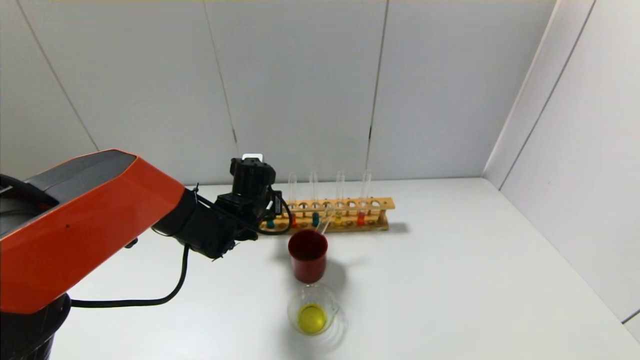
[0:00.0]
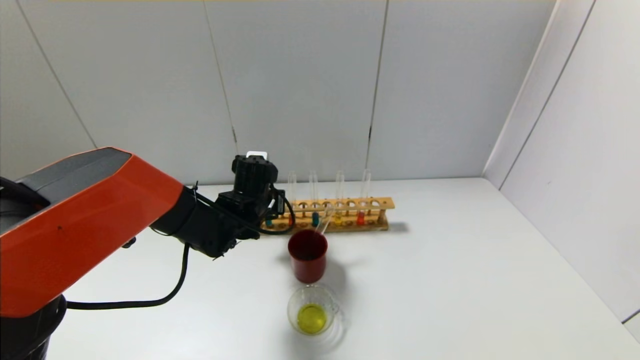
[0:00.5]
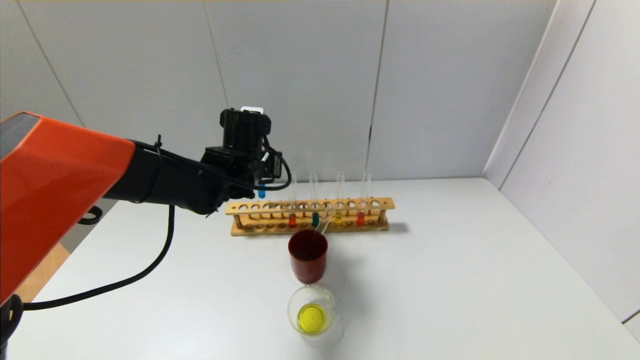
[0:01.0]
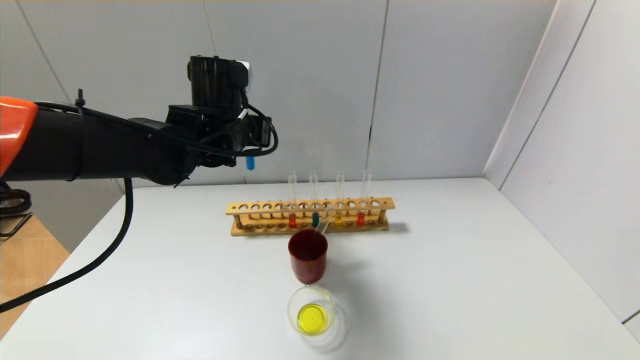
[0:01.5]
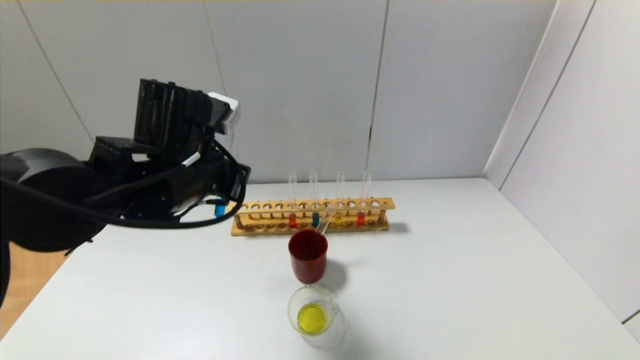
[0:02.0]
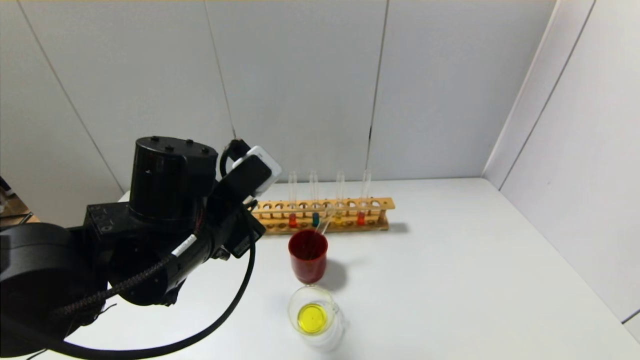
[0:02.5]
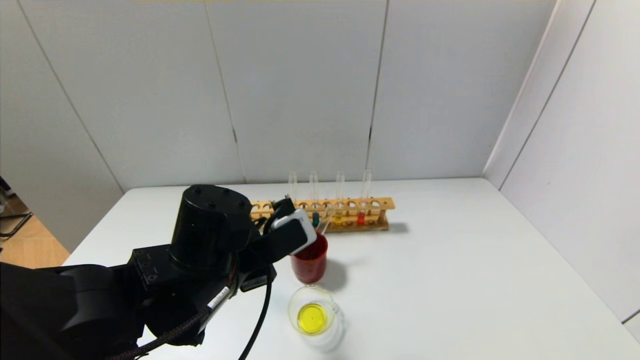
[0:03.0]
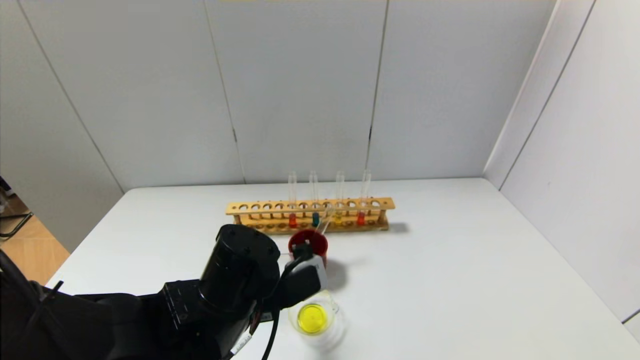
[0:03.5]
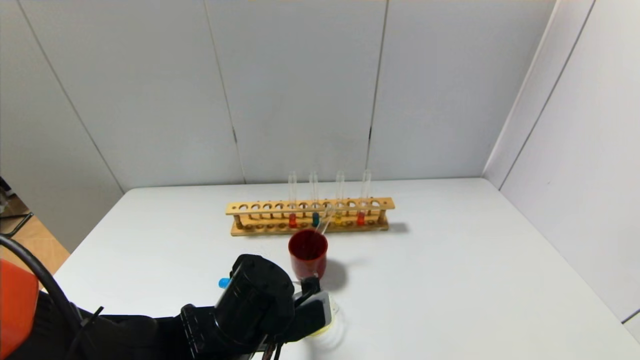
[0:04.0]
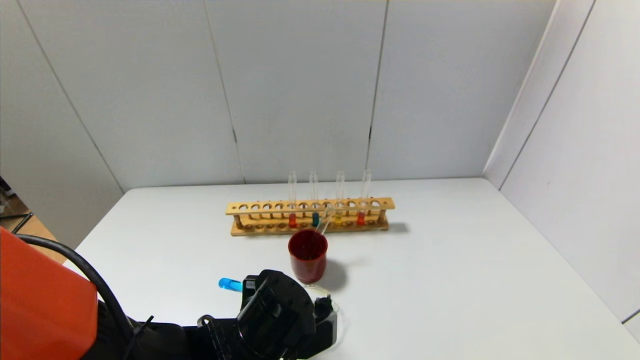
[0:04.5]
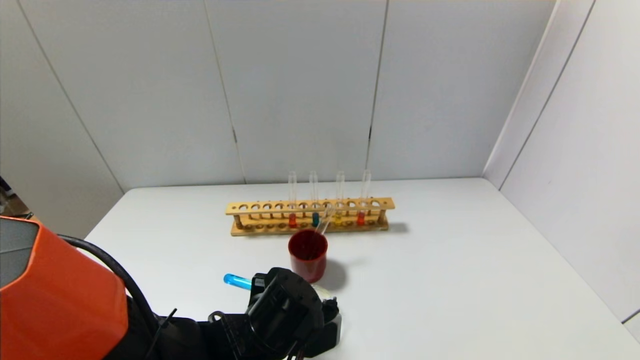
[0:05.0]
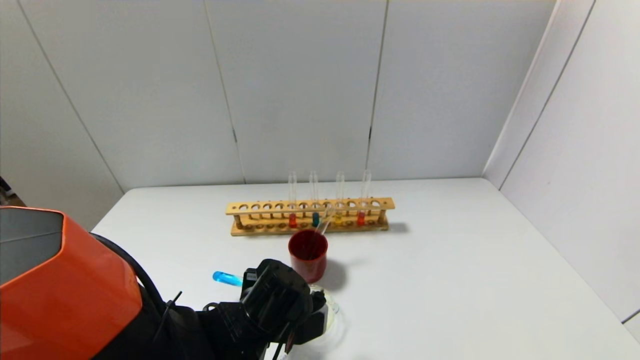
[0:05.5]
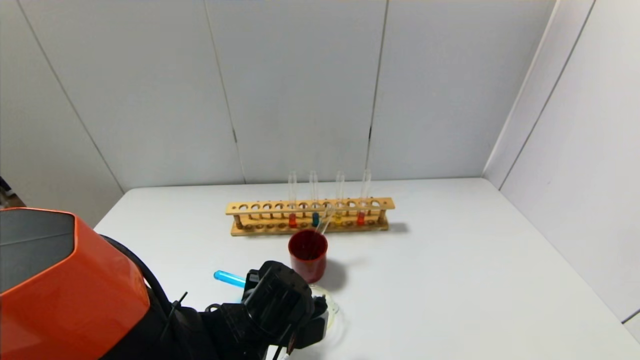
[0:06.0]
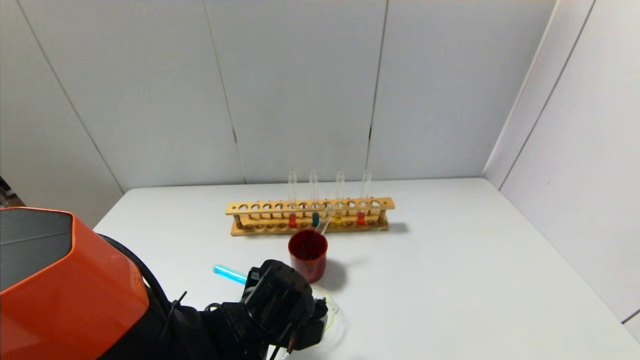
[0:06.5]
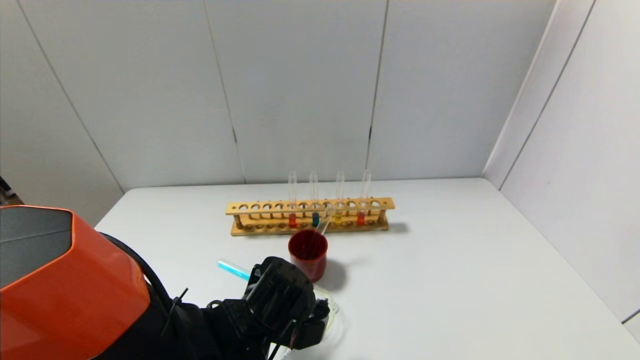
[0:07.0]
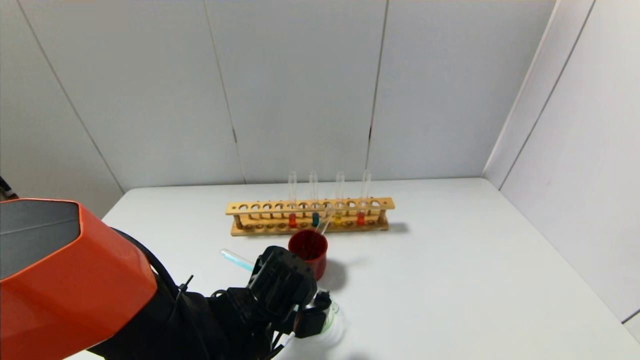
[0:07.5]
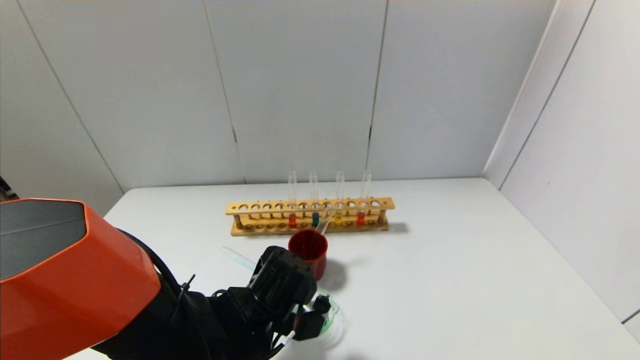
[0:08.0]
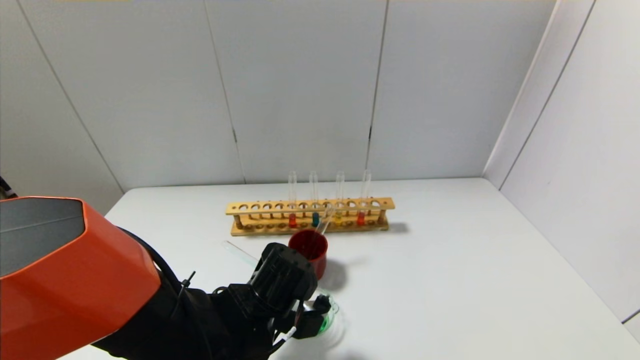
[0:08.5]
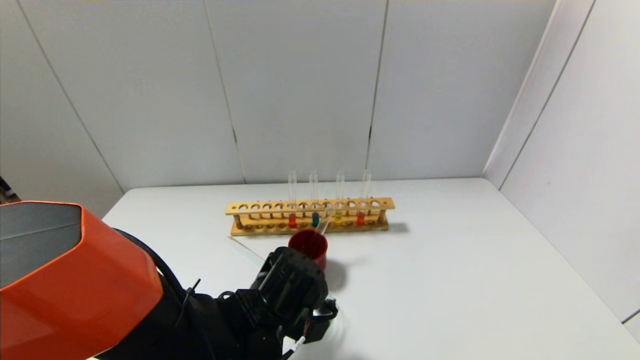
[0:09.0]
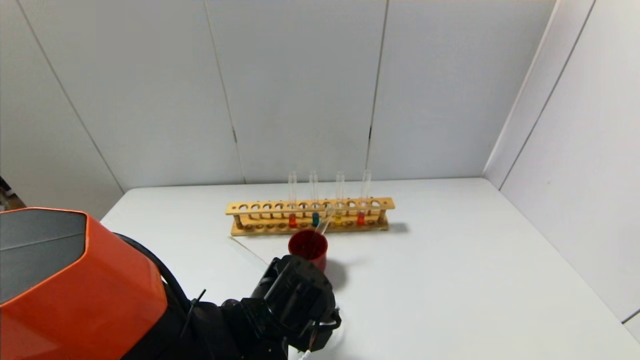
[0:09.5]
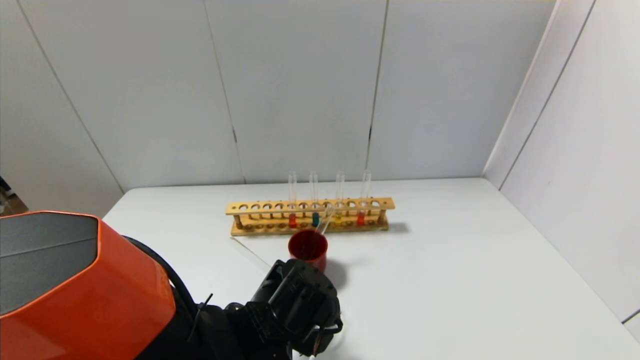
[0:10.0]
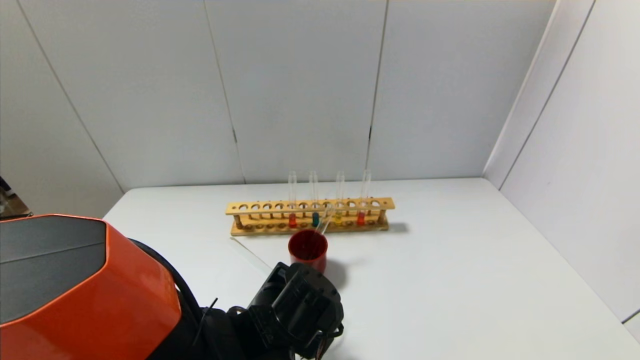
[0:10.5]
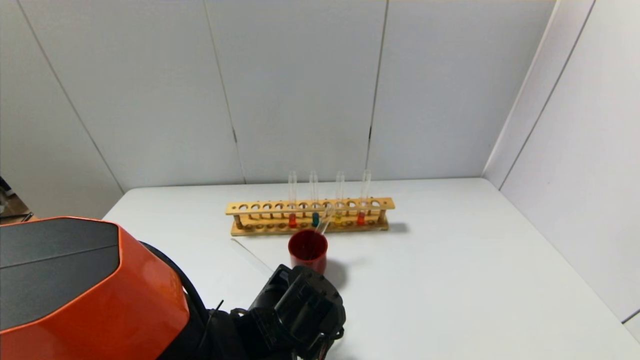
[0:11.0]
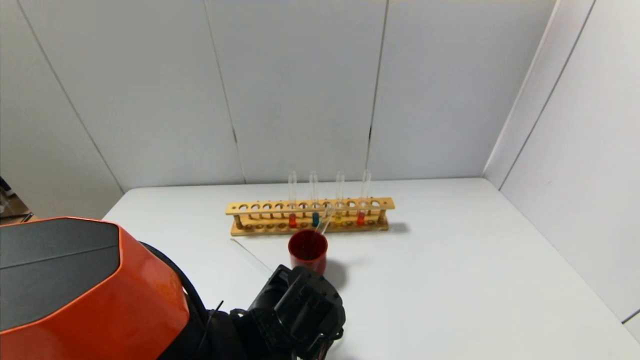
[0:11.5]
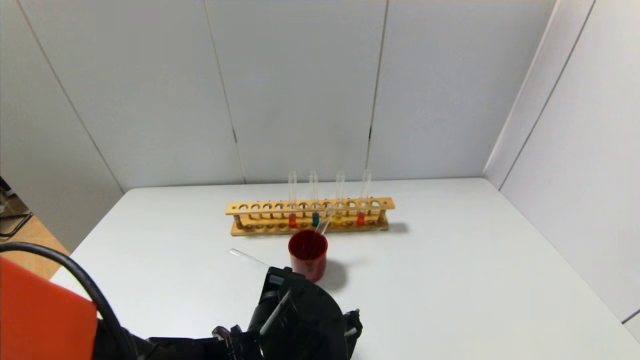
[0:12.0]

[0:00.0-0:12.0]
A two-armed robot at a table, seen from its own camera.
Step, 0:00.5 to 0:11.5: Pour the blue reagent into the graduated cylinder with the left gripper.
0:00.0 to 0:02.0: The left gripper moves upward and backward, some 20 cm.
0:02.0 to 0:04.0: The left gripper travels downward, backward and to the right by about 15 cm.
0:06.0 to 0:08.0: The grippers stay close to where they were, moving slightly.
0:08.0 to 0:10.0: There are only small adjustments of the grippers.
0:10.0 to 0:12.0: The left gripper ends up roughly 5 cm from where it was.

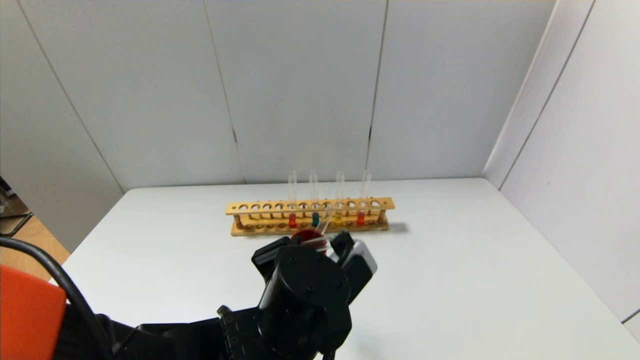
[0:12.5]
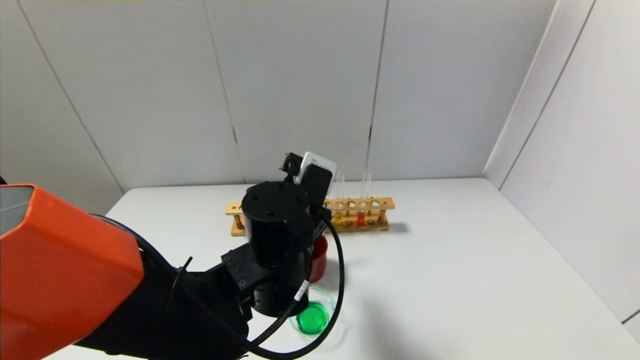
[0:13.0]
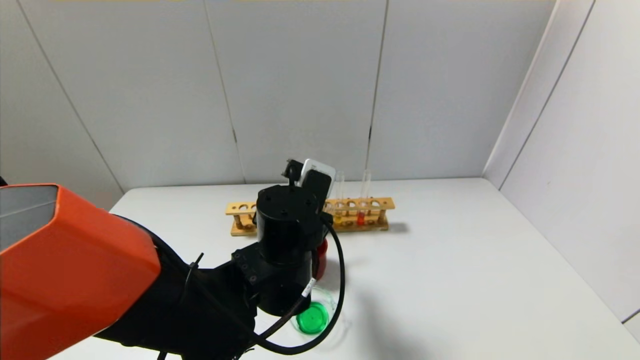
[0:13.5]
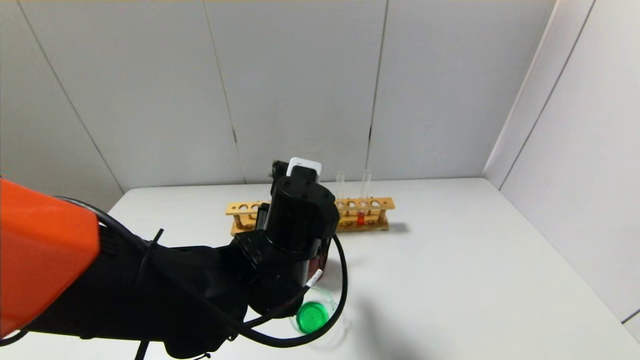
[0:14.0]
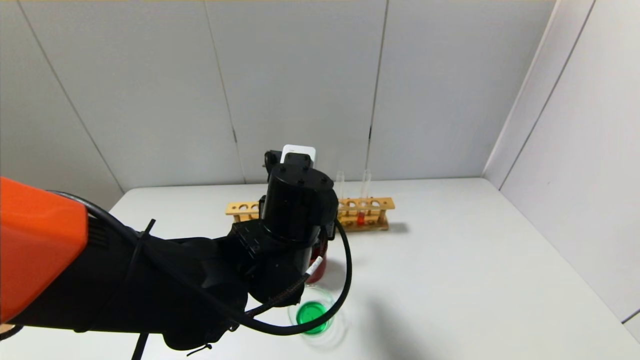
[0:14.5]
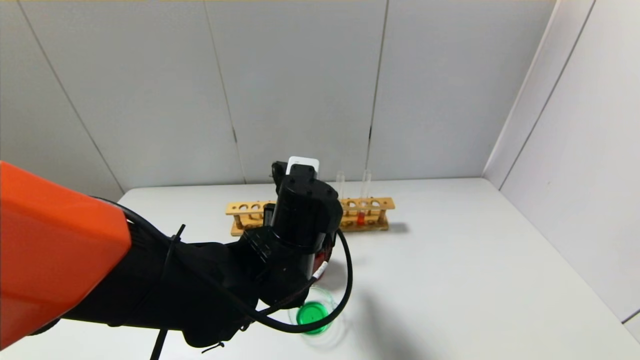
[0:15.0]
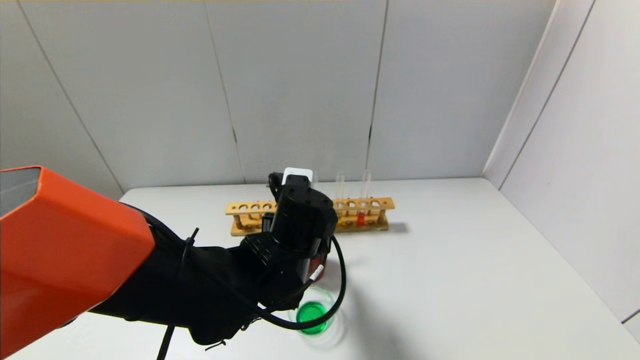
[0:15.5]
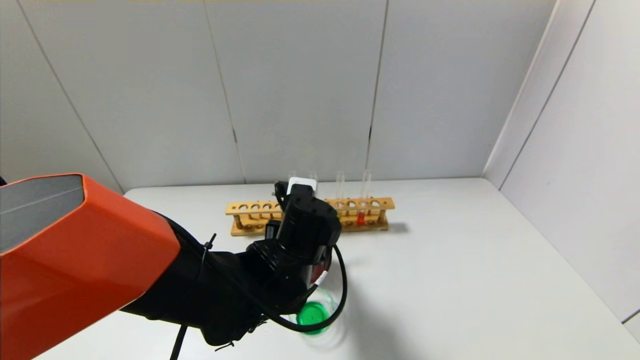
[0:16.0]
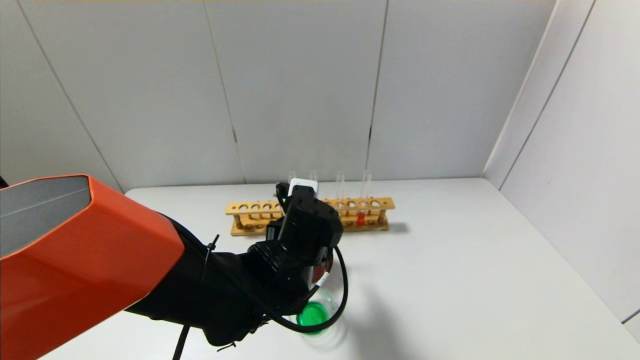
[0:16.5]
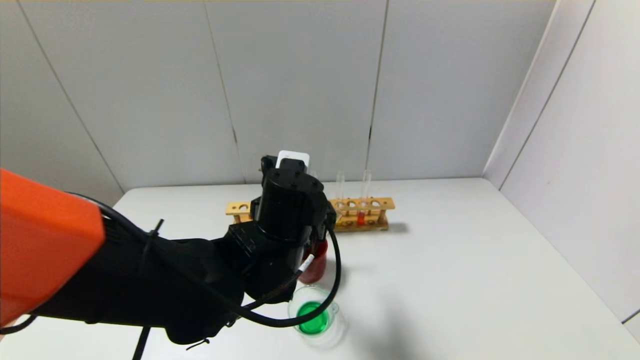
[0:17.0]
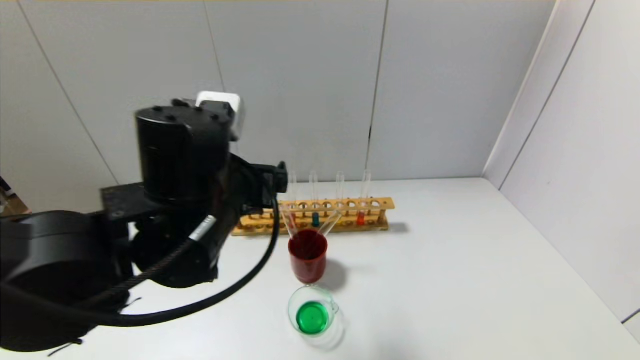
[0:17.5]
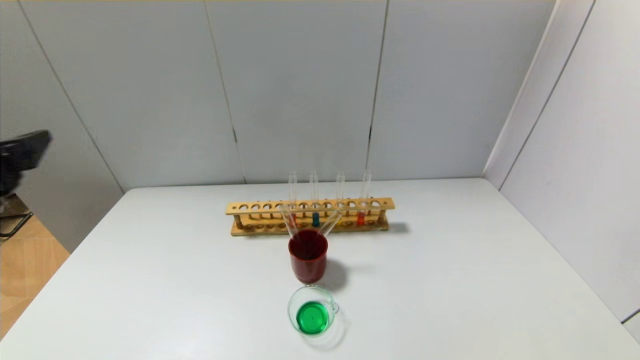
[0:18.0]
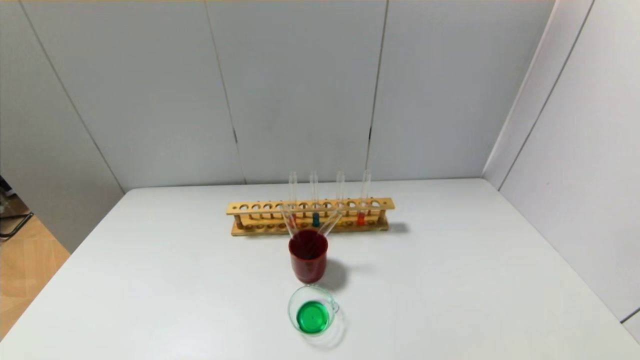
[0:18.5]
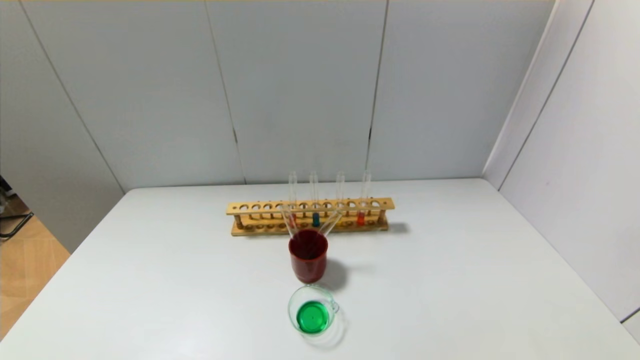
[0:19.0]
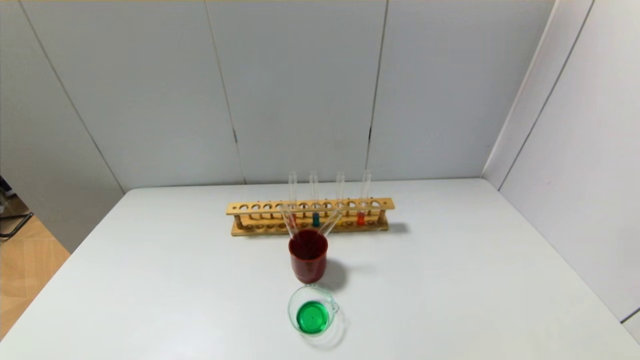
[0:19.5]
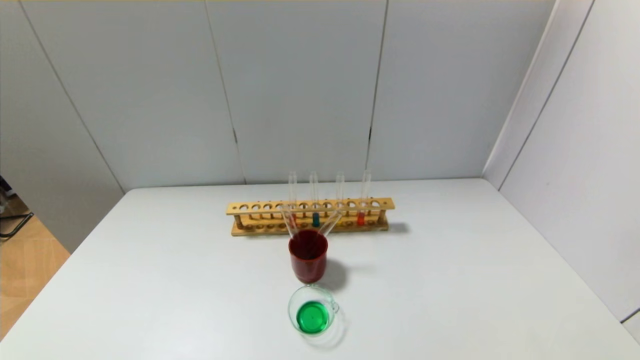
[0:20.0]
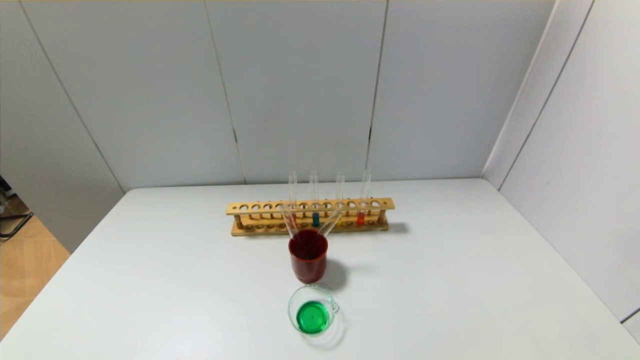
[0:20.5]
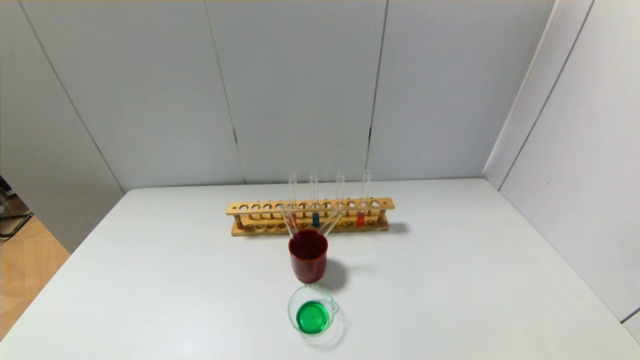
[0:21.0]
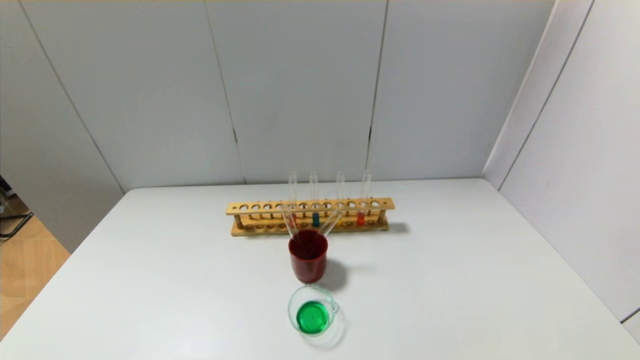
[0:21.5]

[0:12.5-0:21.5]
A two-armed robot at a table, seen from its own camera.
Step, 0:12.5 to 0:16.0: Place the test tube into the brown cup with the left gripper.
0:12.5 to 0:14.5: The left gripper goes some 5 cm forward.
0:14.5 to 0:17.0: The left gripper opens.
0:17.0 to 0:19.5: The left gripper is displaced backward and to the left by roughly 40 cm.
